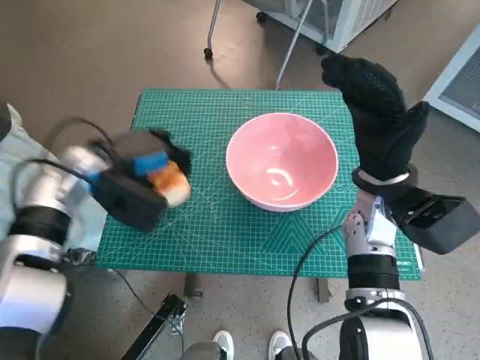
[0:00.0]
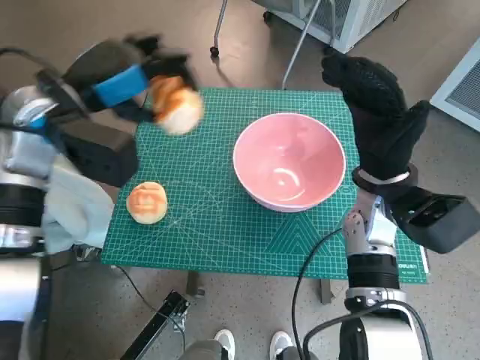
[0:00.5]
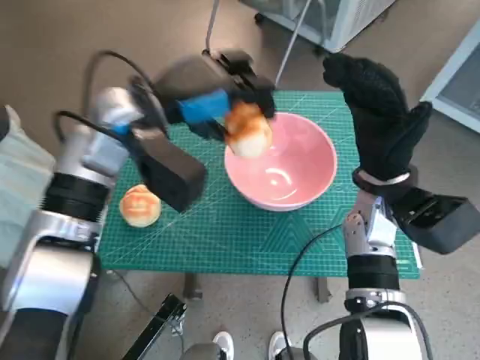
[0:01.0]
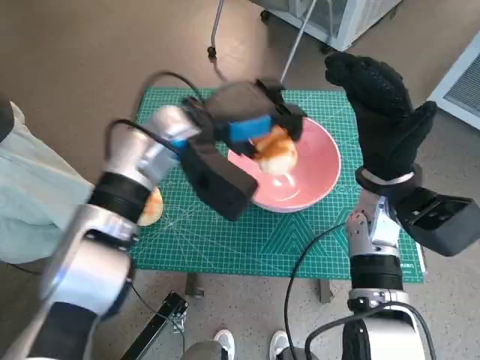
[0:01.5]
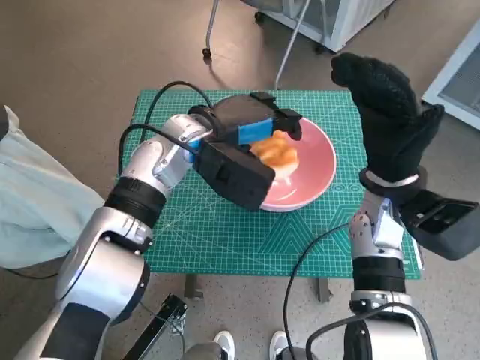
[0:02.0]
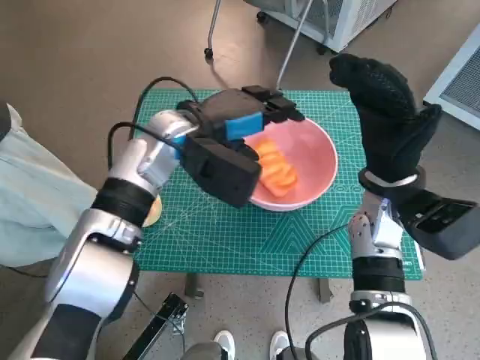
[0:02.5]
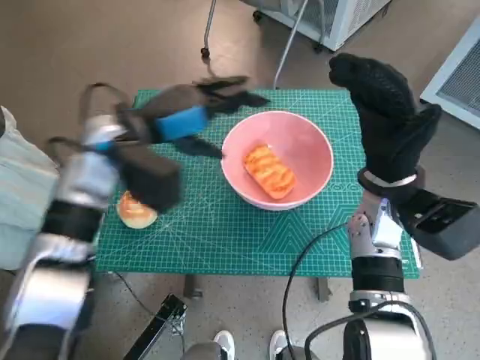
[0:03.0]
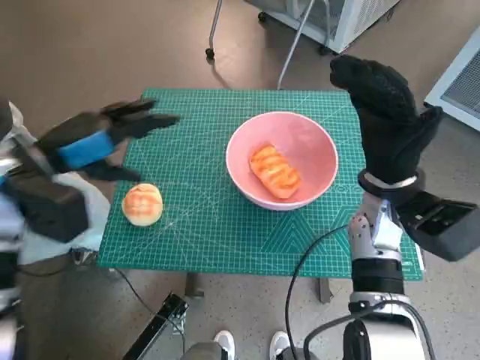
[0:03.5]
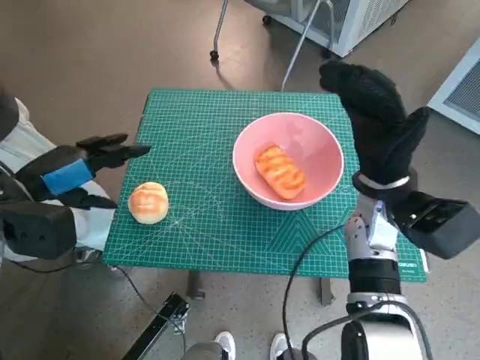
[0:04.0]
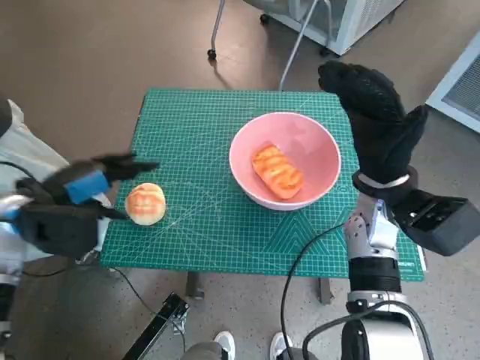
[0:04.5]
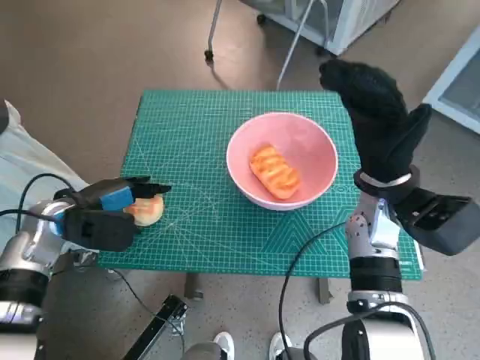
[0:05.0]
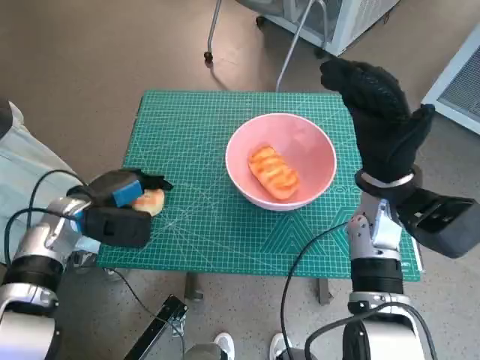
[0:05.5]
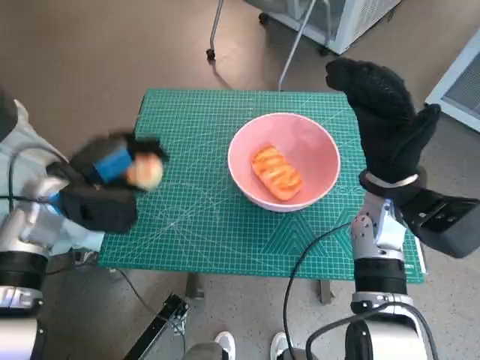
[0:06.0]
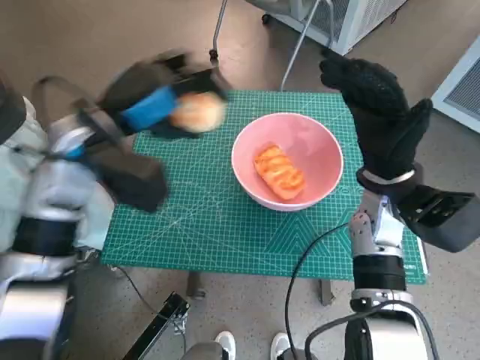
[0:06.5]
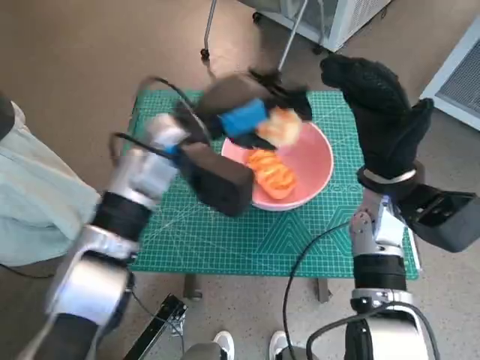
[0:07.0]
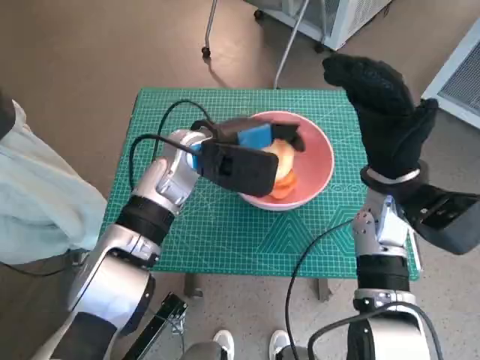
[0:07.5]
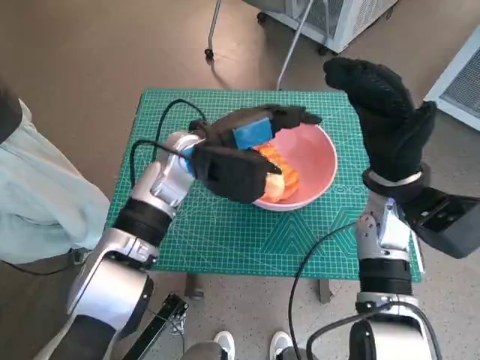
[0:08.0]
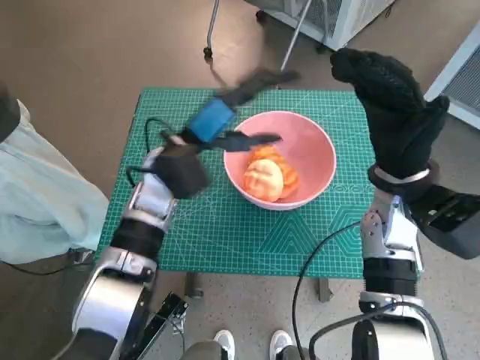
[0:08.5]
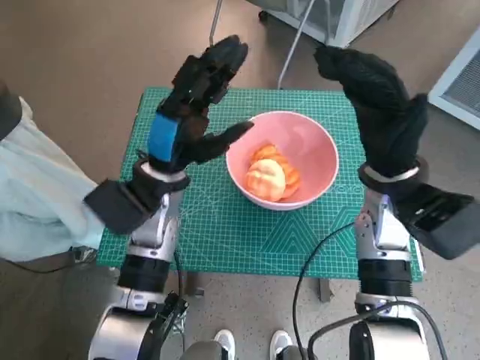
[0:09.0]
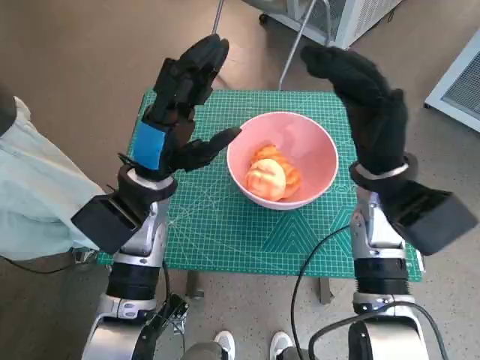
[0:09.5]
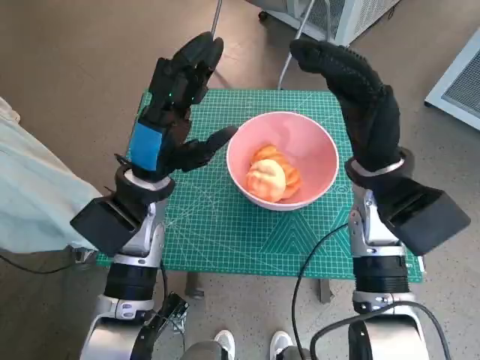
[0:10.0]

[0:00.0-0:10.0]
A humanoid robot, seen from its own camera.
Task of the whole recording: Push the bowl to the center of the table and put the bread into the bowl.
Step, 0:00.0 to 0:02.0: Place the long bread in pink bowl with left hand.
Step, 0:02.5 to 0:05.5: Grasp the round bread with left hand.
Step, 0:06.0 to 0:08.0: Place the round bread in pink bowl with left hand.
0:00.0 to 0:02.0: The left hand is displaced to the right by about 15 cm.
0:02.0 to 0:04.0: The left hand goes roughly 25 cm to the left and backward.
0:06.0 to 0:08.0: The left hand goes approximately 20 cm to the right.
0:08.0 to 0:10.0: The left hand heads to the left and backward, covering roughly 10 cm.

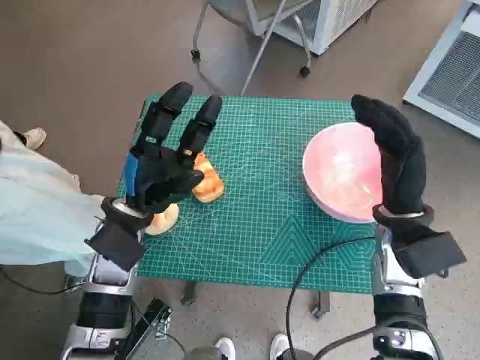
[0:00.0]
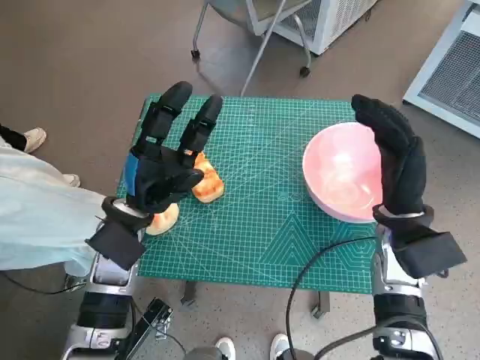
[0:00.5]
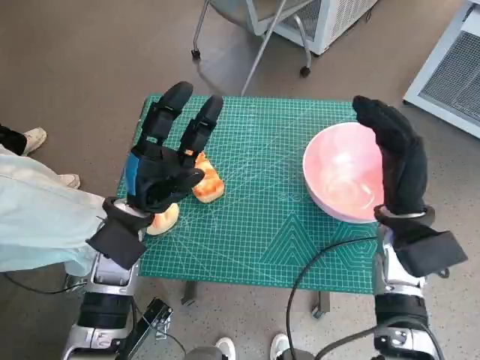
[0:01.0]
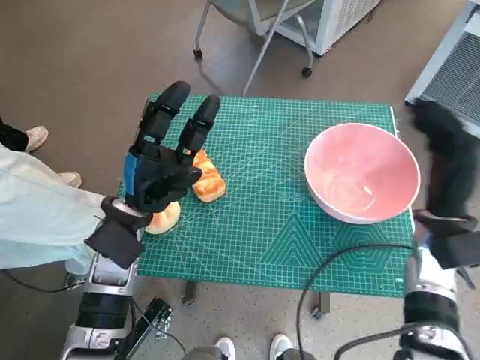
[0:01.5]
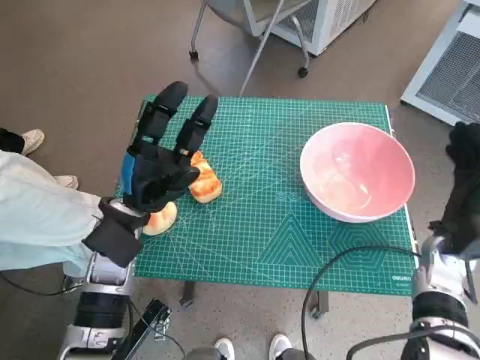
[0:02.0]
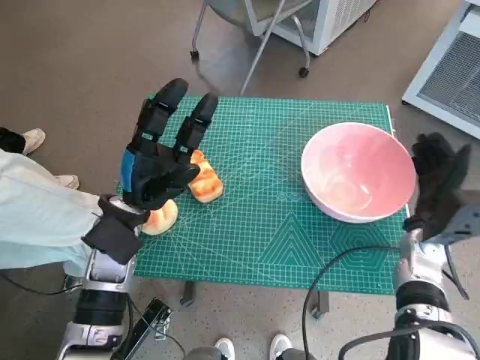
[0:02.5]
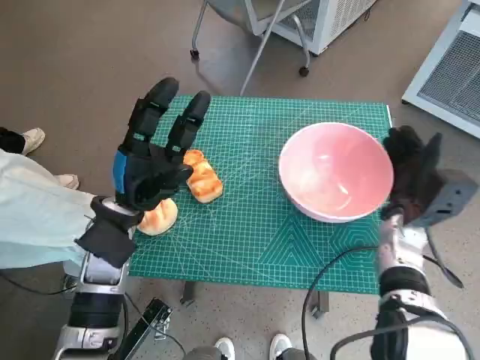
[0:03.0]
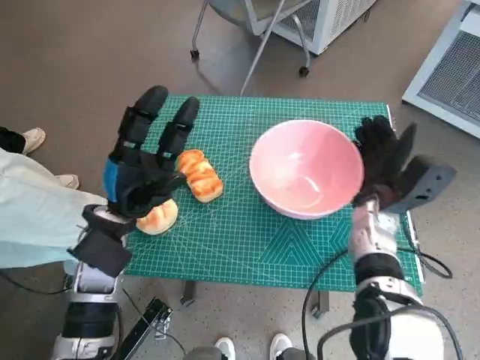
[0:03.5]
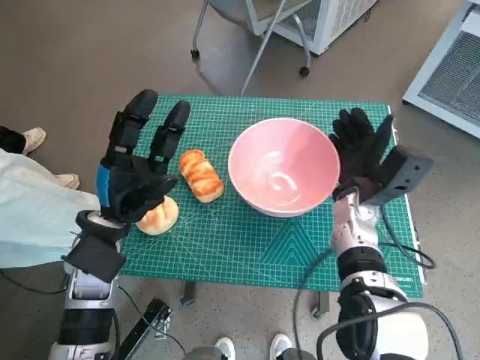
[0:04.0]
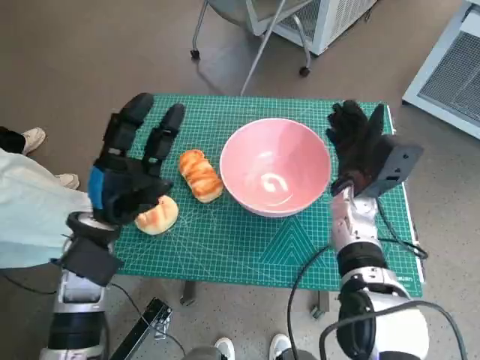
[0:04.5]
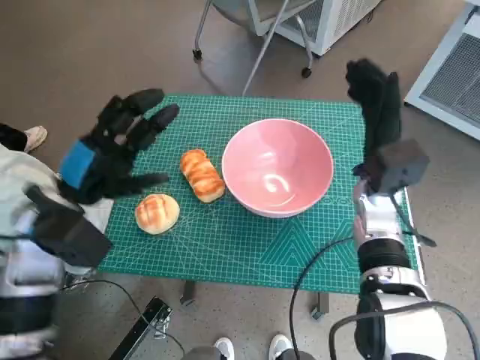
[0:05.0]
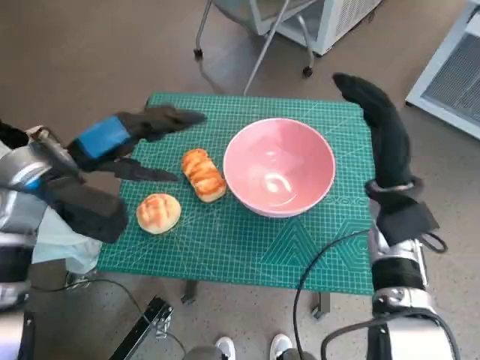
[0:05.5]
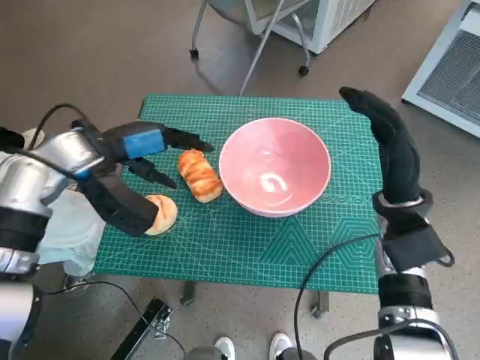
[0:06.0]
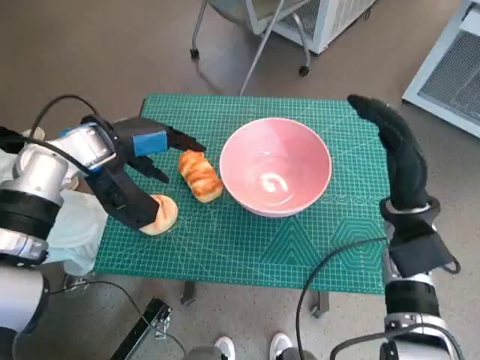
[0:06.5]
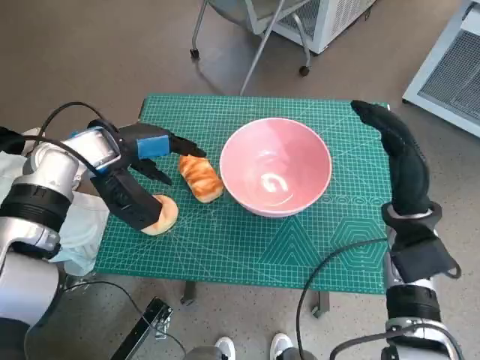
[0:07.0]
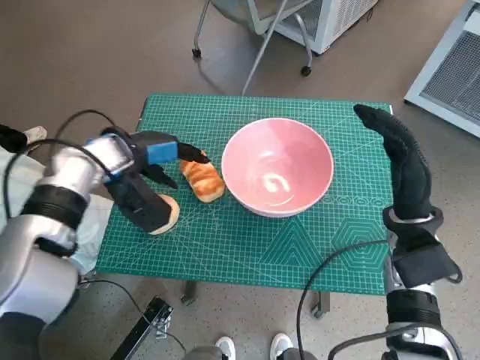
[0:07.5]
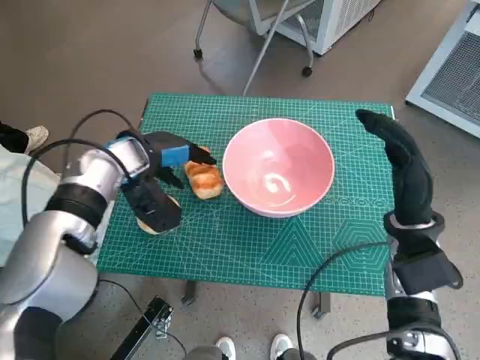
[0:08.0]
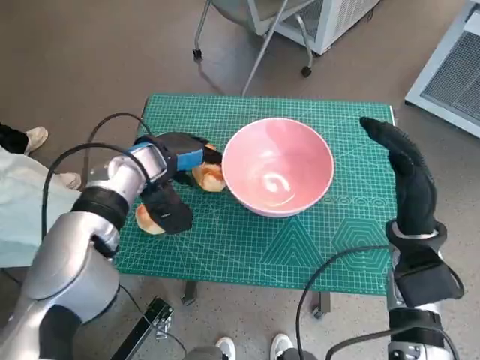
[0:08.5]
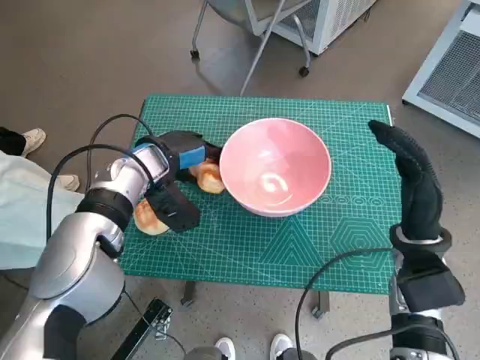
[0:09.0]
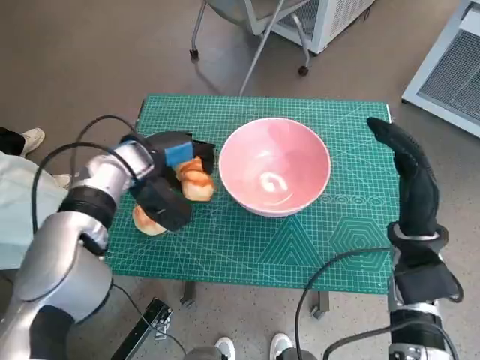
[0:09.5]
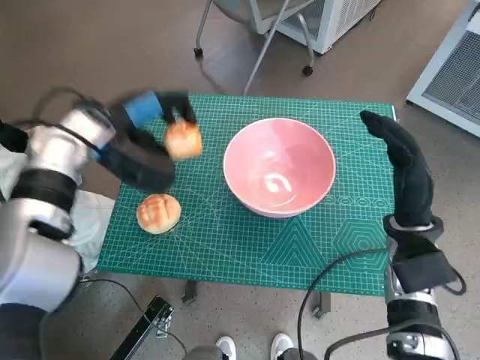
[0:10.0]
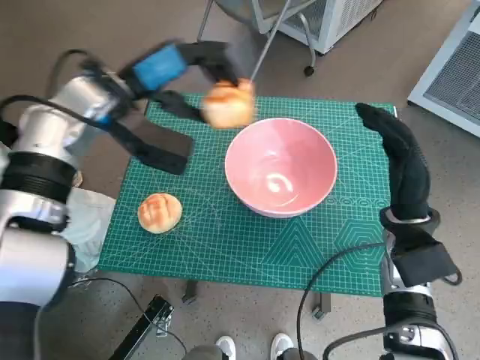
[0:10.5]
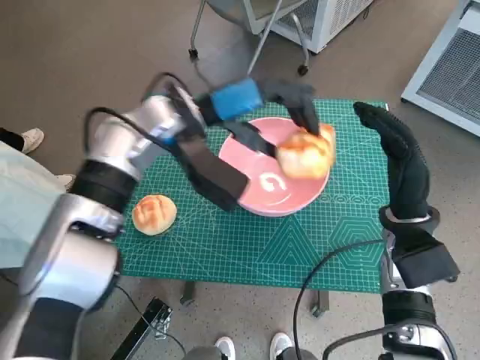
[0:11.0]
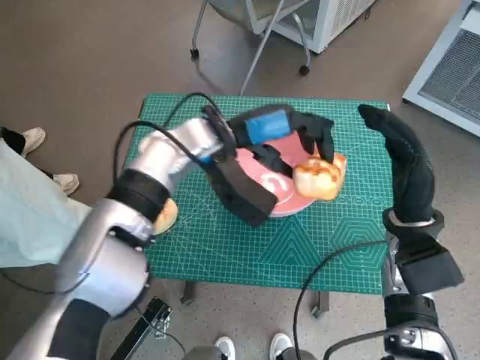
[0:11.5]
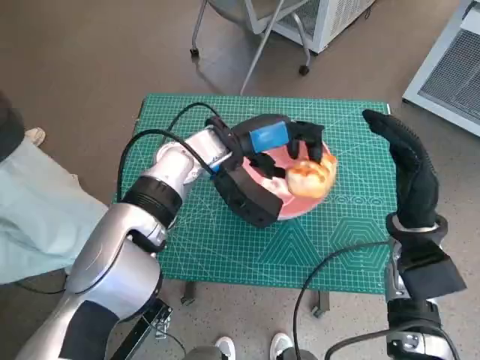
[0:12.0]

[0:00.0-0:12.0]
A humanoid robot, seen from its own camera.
Task of the whole recording: Push the bowl to the center of the table and put the bread into the bowl.
Step, 0:00.0 to 0:04.5: Move the pink bowl to the center of table with right hand.
Step, 0:05.0 to 0:08.5: Grasp the long bread with left hand.
0:02.0 to 0:04.0: The right hand travels to the left and forward by some 15 cm.
0:04.0 to 0:06.0: The right hand shifts by approximately 5 cm. The left hand heads upward and forward, covering roughly 10 cm.
0:06.0 to 0:08.0: The left hand moves downward, about 5 cm.
0:10.0 to 0:12.0: The left hand heads to the right, covering some 15 cm.

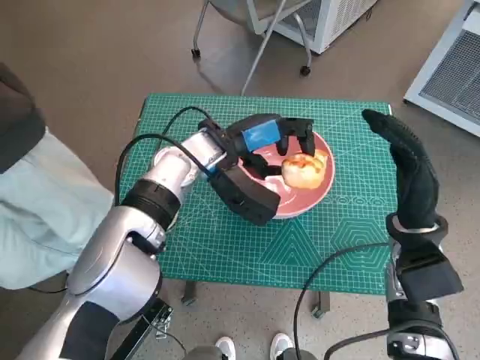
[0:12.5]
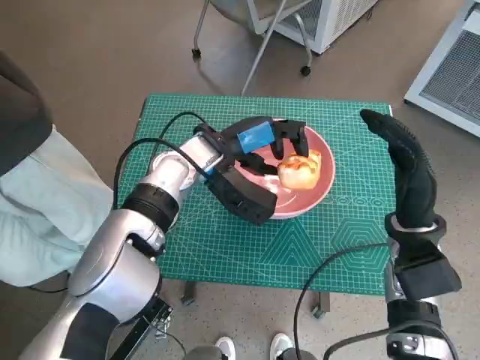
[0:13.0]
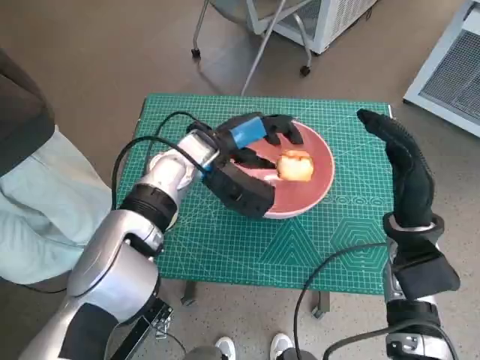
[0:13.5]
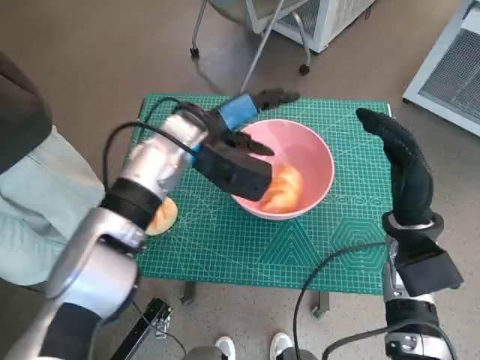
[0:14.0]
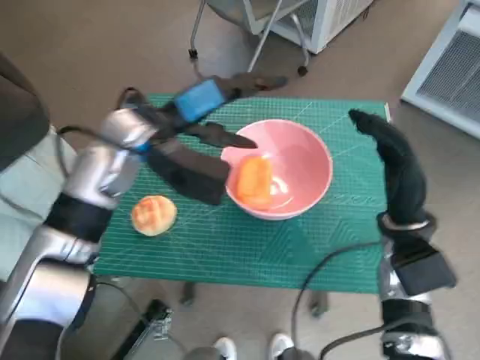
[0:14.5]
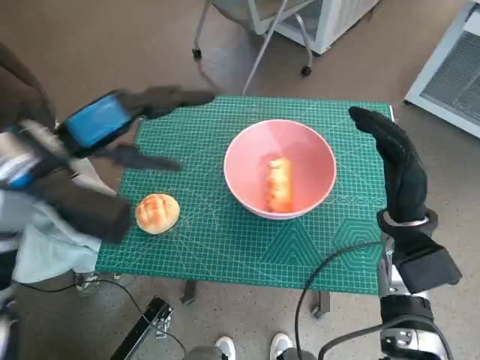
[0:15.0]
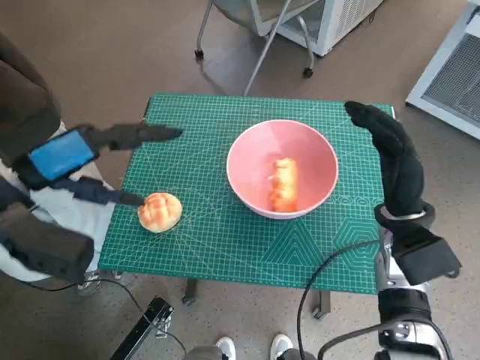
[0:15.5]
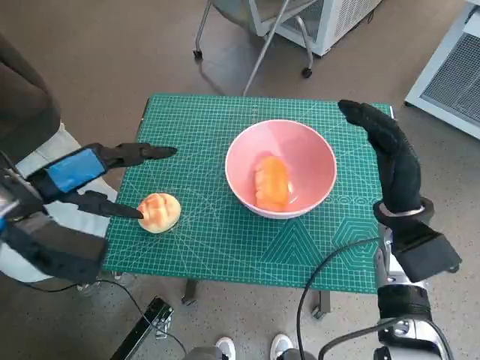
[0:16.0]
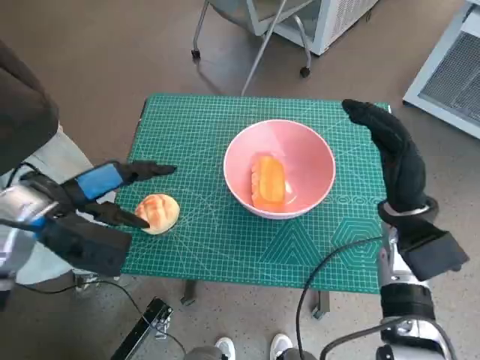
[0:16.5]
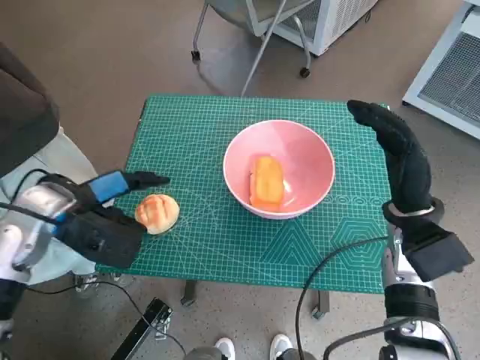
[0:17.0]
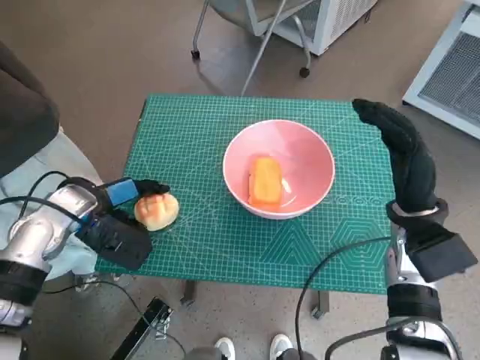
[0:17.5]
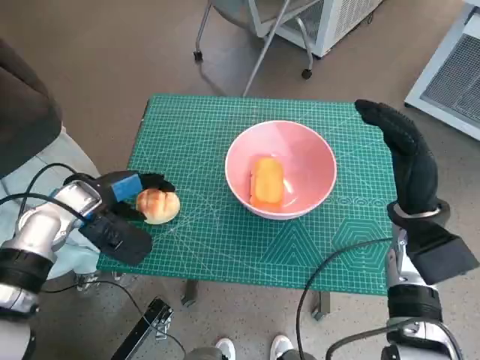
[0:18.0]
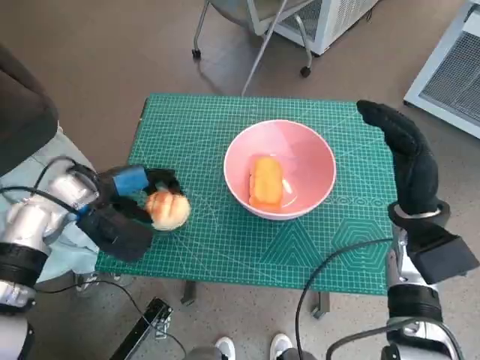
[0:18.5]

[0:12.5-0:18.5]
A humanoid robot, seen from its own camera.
Task of the whole recording: Push the bowl to the center of the table and put the bread into the bowl.
Step, 0:14.5 to 0:17.5: Grasp the round bread with left hand.
0:12.5 to 0:14.5: The left hand is displaced to the left and upward by approximately 10 cm.
0:14.5 to 0:16.5: The left hand moves to the left and backward, some 15 cm.
0:16.5 to 0:18.5: The left hand is displaced downward by approximately 5 cm.
